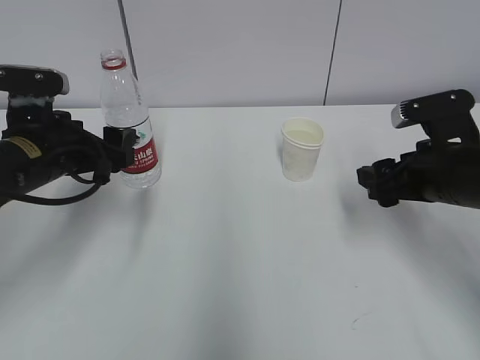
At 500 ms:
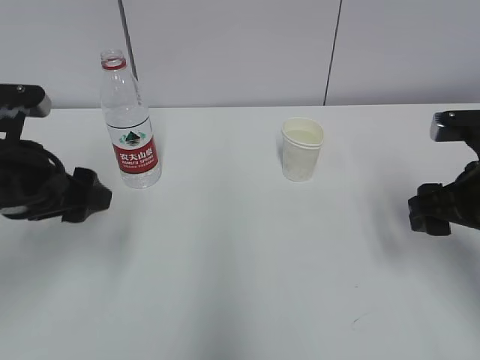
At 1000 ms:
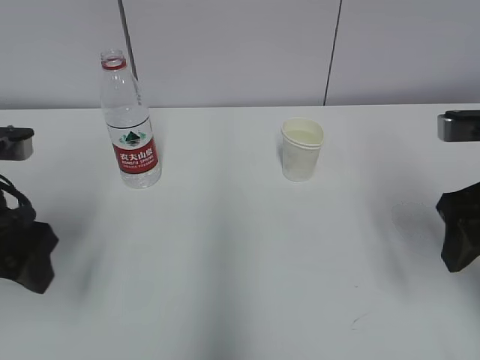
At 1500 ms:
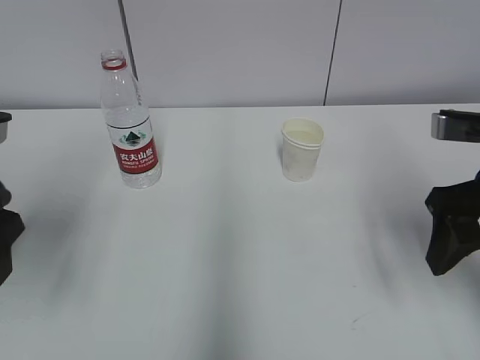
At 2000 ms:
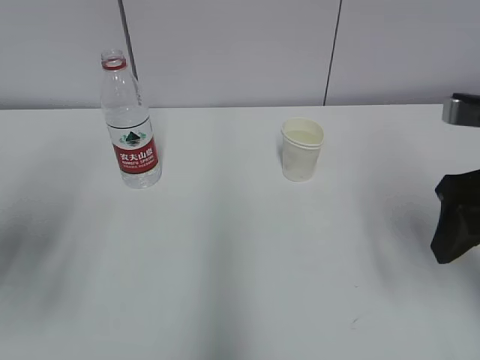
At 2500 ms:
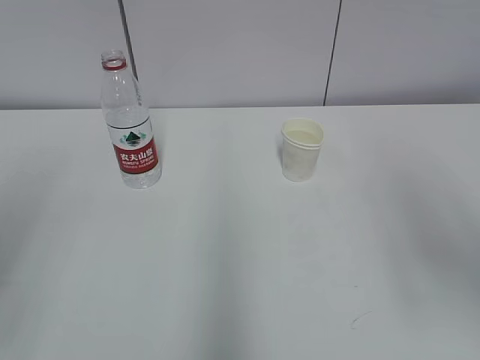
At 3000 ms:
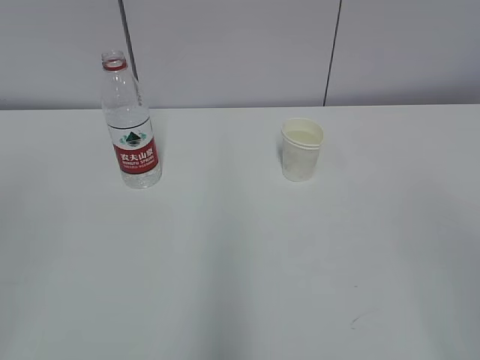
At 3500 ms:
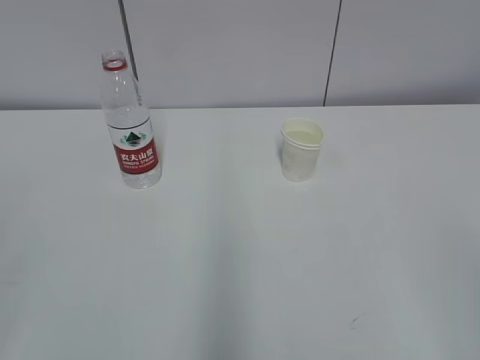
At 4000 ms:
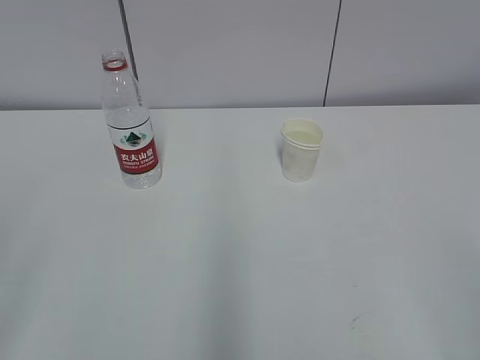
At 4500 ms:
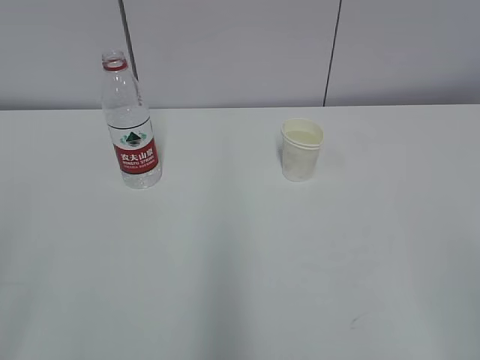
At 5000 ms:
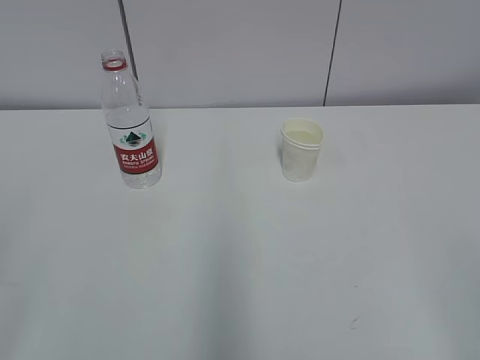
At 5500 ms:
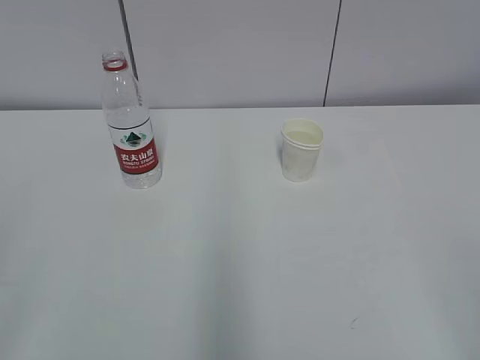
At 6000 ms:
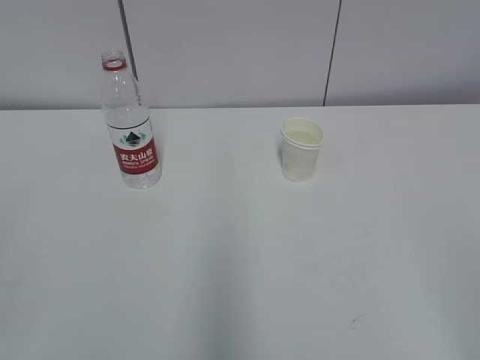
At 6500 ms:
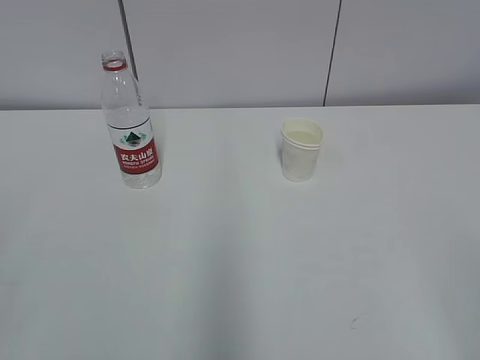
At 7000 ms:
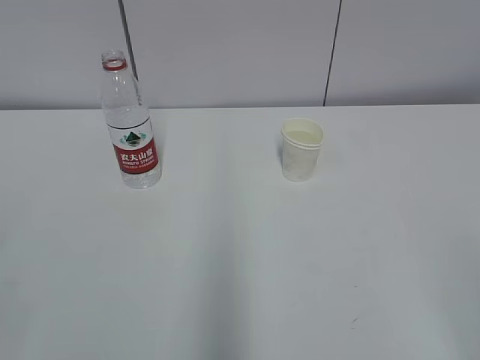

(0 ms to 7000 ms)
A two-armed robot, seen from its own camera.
0 ms - 2000 ms: The right gripper is displaced upward and backward by about 10 cm; the left gripper moves backward, upward and to the left, approximately 15 cm.
2000 ms - 3500 ms: Both grippers move backward, some 25 cm.

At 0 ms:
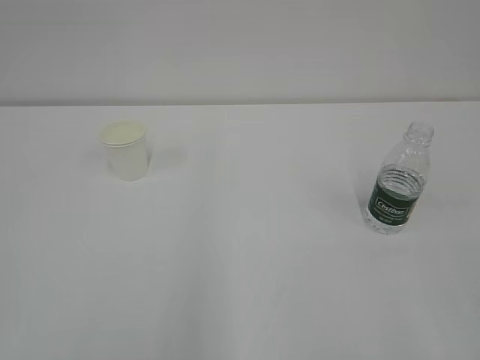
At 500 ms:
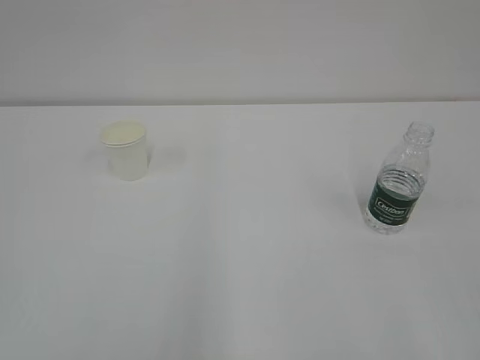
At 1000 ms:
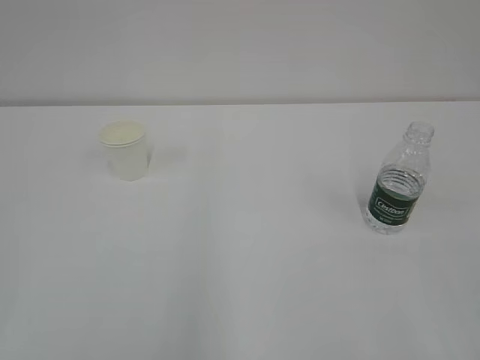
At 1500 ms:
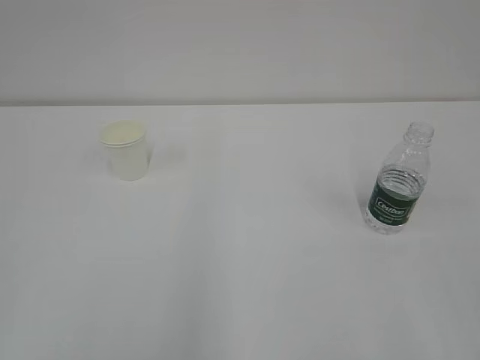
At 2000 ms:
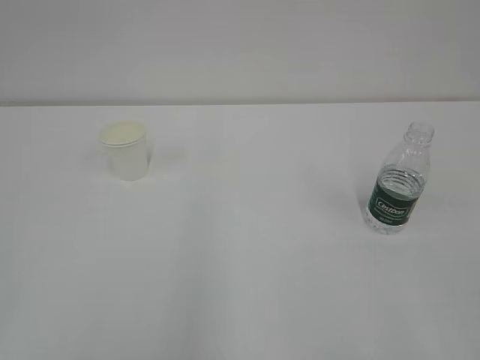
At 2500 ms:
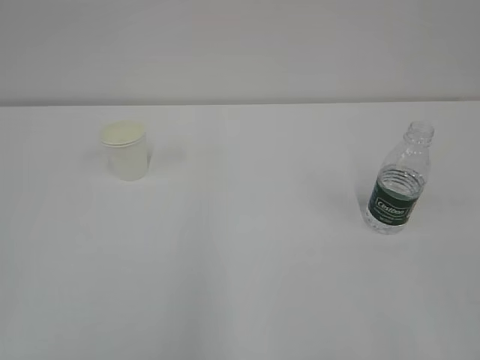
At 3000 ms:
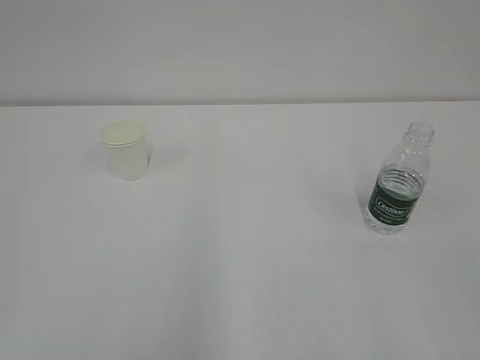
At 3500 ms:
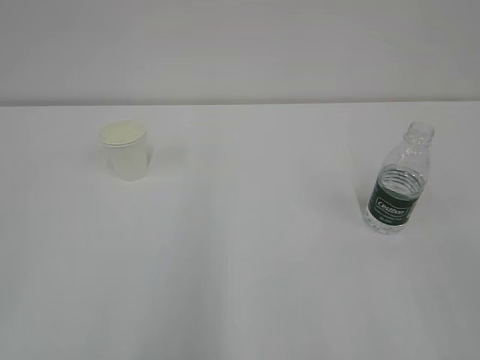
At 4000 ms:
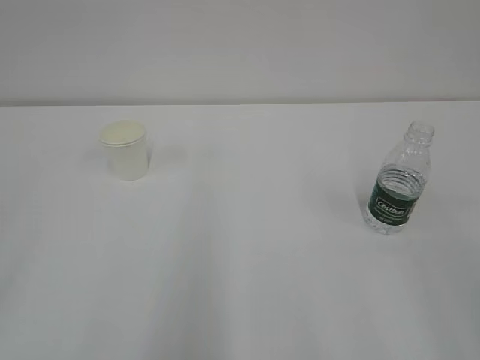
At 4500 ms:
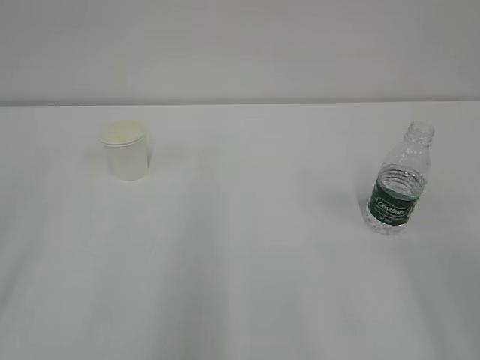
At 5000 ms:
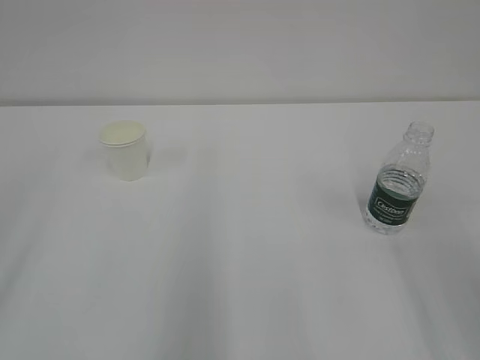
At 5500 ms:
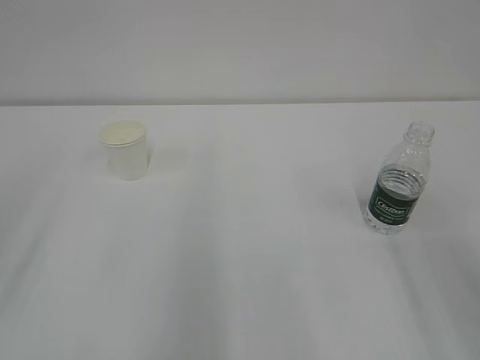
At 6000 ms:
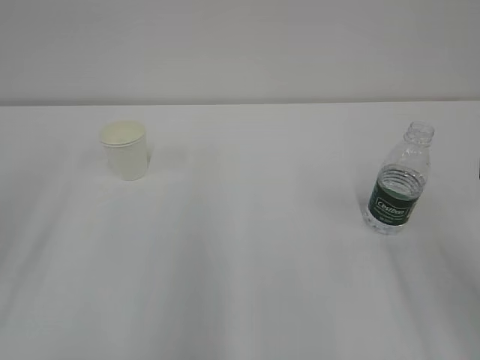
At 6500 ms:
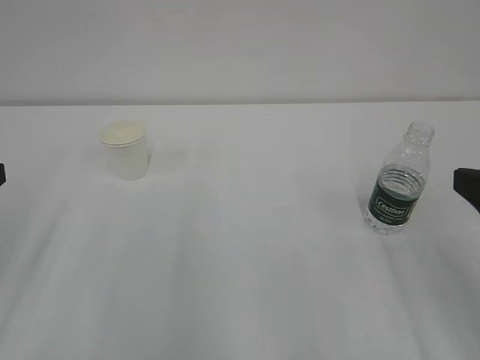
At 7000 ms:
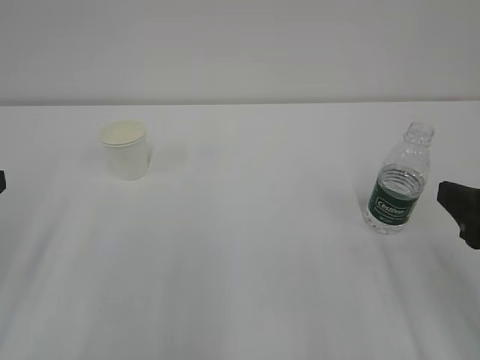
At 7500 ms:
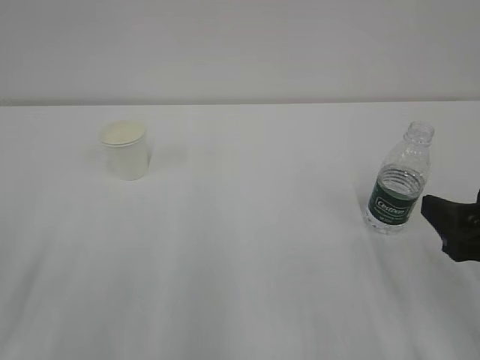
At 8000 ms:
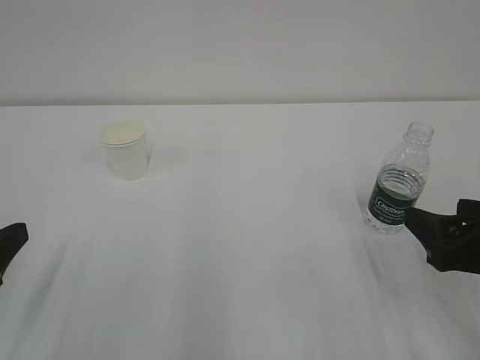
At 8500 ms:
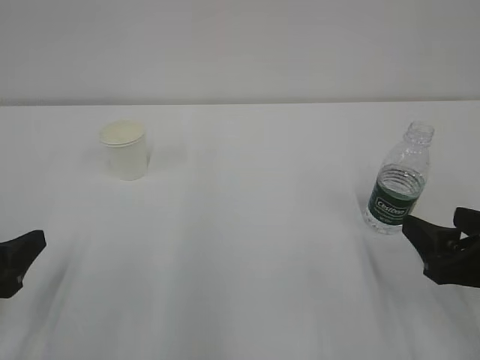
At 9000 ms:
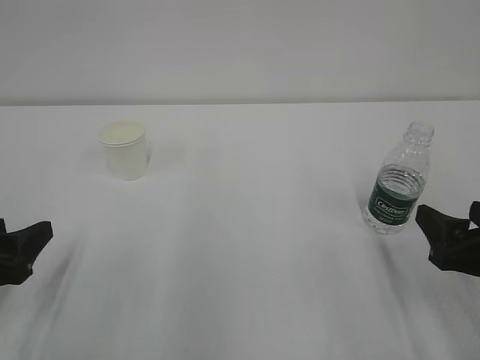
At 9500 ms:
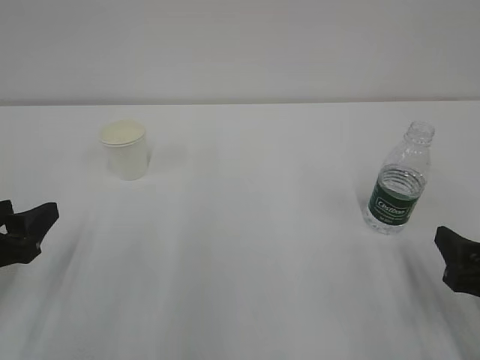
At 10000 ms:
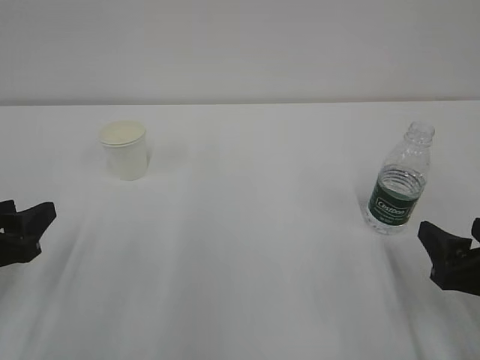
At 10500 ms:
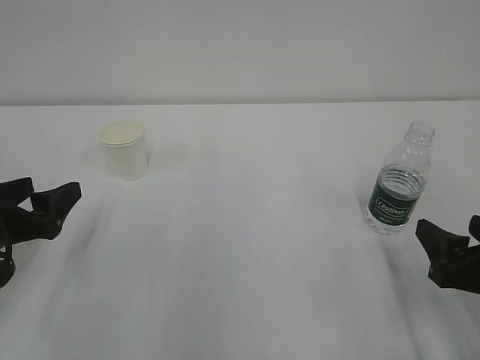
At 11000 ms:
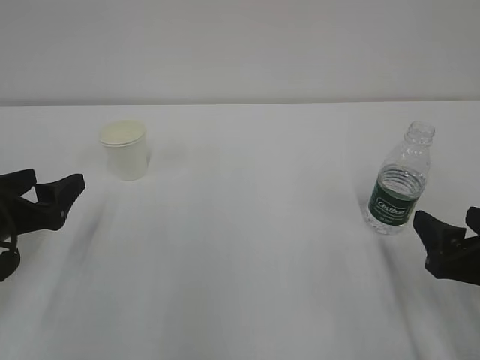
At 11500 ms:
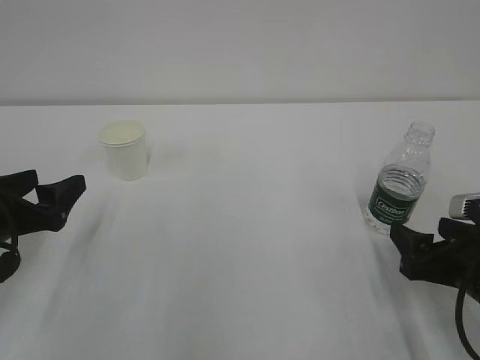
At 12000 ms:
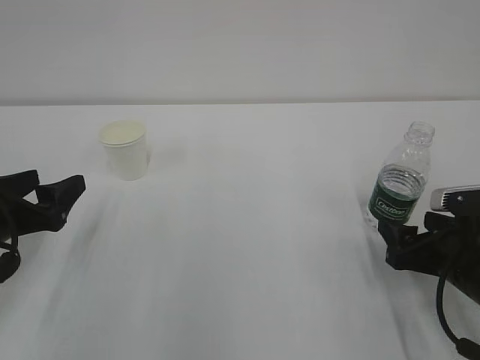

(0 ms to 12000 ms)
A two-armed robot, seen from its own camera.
6000 ms - 8000 ms: The right gripper travels downward by approximately 10 cm. The left gripper goes approximately 15 cm downward and backward.
8000 ms - 10000 ms: The left gripper ends up some 5 cm from where it was.
10000 ms - 12000 ms: The right gripper is displaced forward by approximately 5 cm.

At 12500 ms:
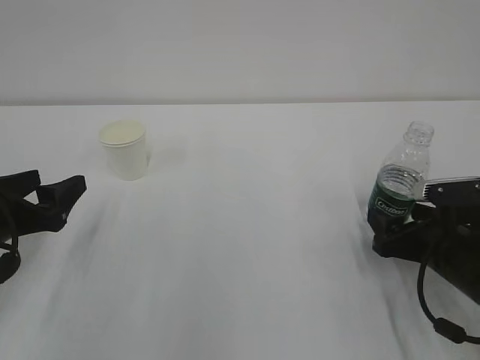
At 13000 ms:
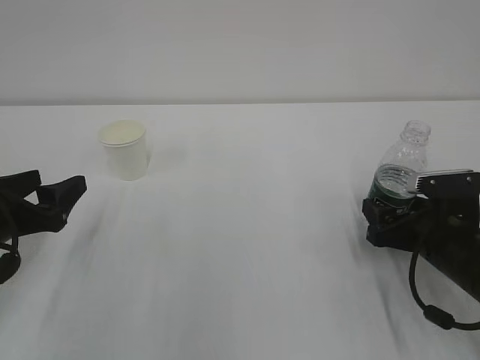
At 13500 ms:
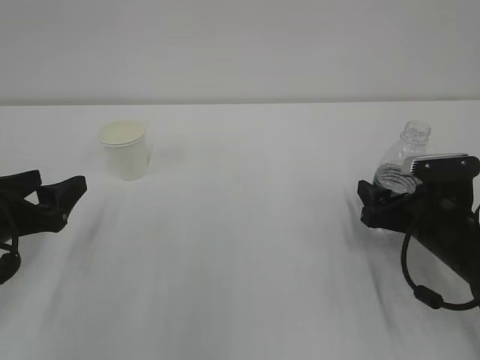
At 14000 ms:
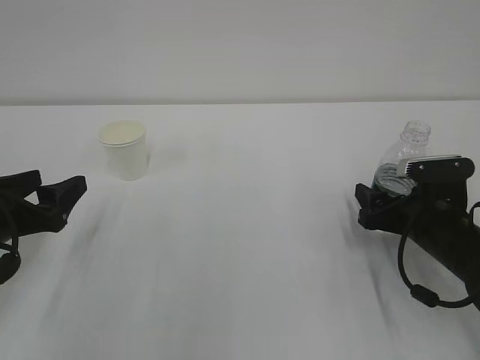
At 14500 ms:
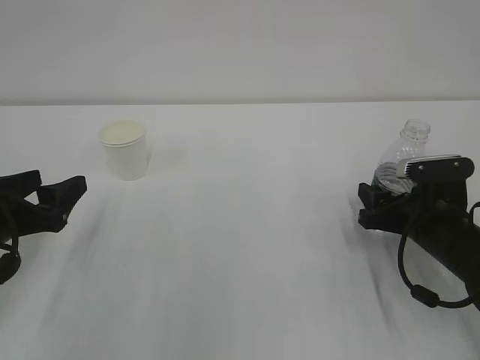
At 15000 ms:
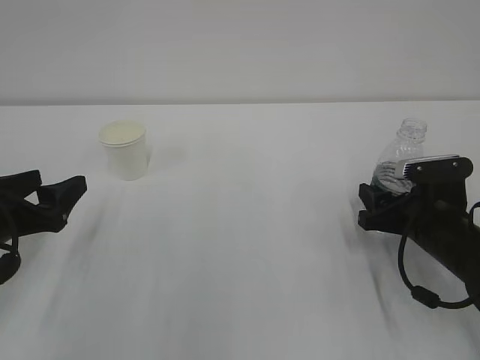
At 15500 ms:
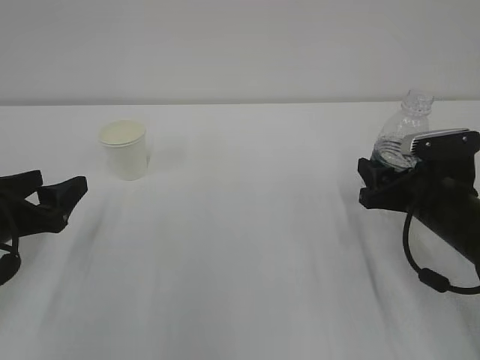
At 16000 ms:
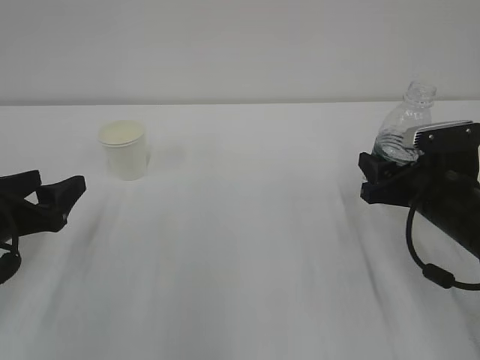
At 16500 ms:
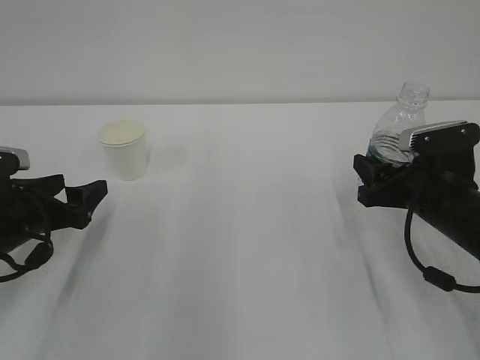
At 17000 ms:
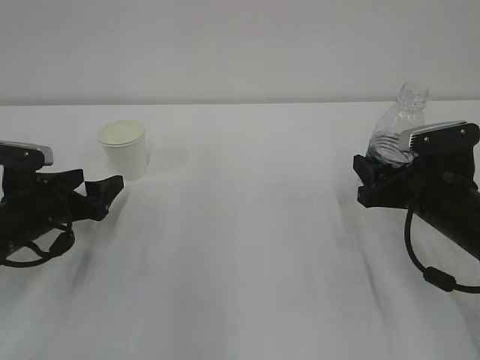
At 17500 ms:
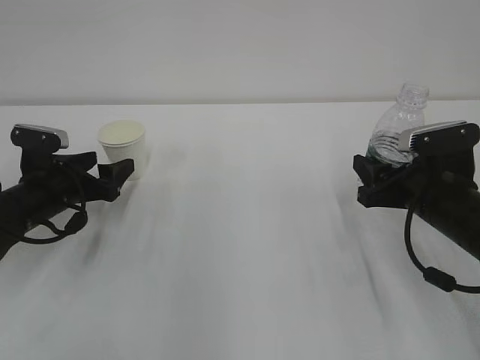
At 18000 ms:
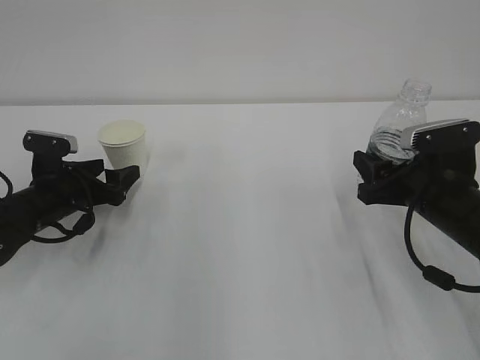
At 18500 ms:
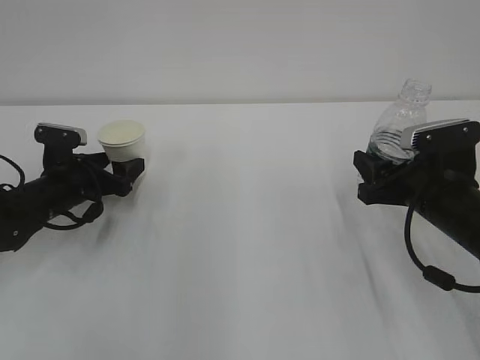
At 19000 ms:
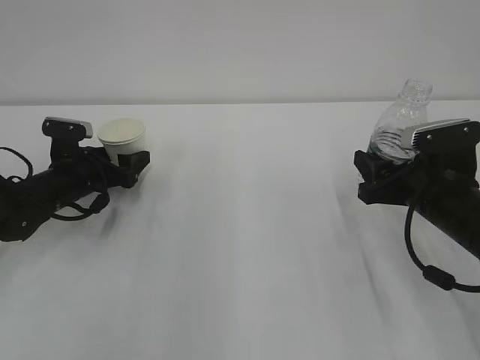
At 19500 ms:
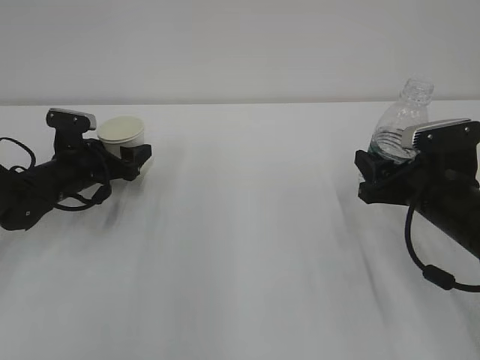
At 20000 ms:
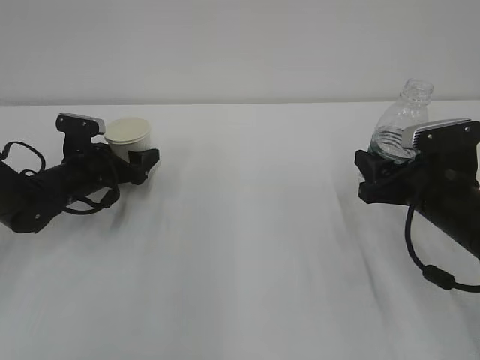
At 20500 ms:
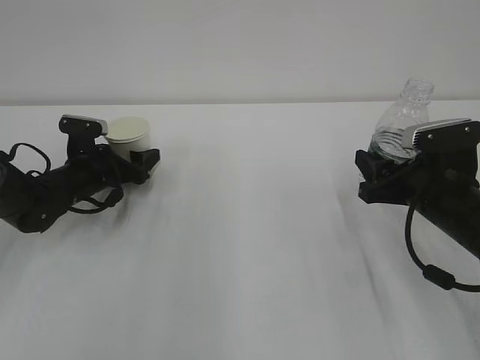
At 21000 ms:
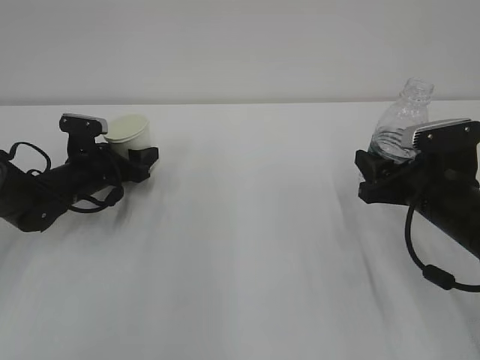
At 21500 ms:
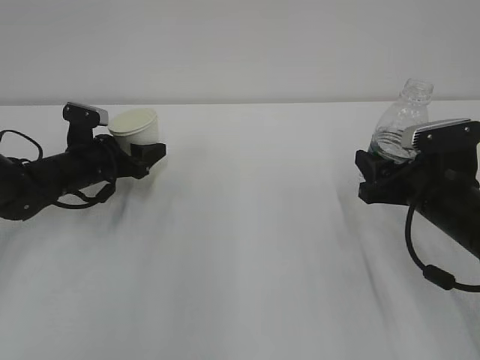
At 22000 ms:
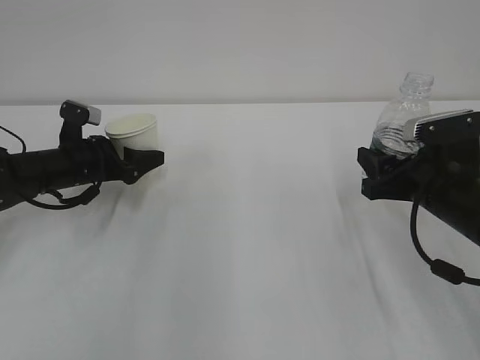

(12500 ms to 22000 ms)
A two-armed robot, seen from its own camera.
12500 ms - 14500 ms: The right gripper closes up.
14500 ms - 16500 ms: The left gripper moves some 5 cm.
16500 ms - 18000 ms: The left gripper is displaced forward by about 10 cm.
18000 ms - 20000 ms: The left gripper heads forward, covering some 5 cm.
20000 ms - 22000 ms: The grippers make only small movements.
